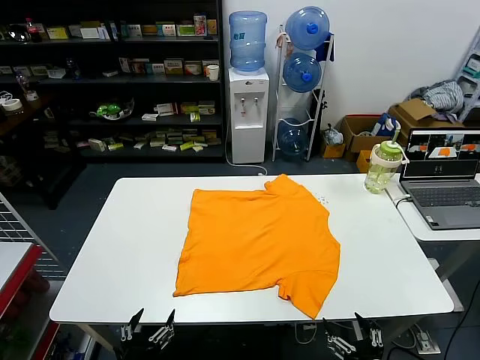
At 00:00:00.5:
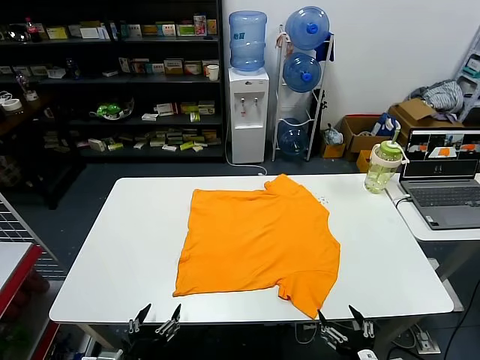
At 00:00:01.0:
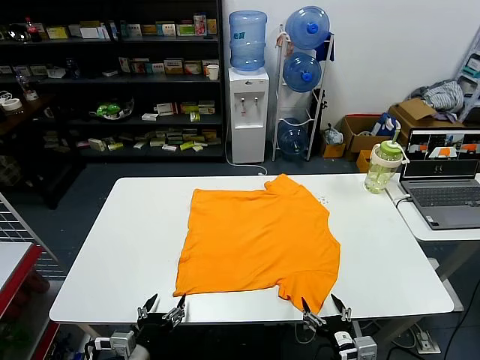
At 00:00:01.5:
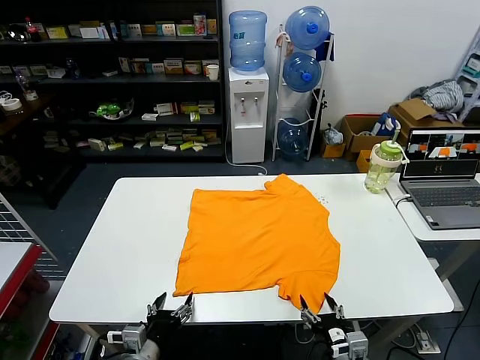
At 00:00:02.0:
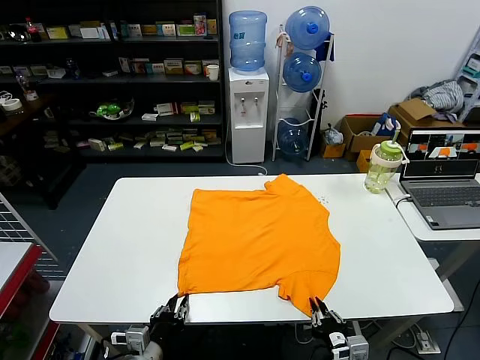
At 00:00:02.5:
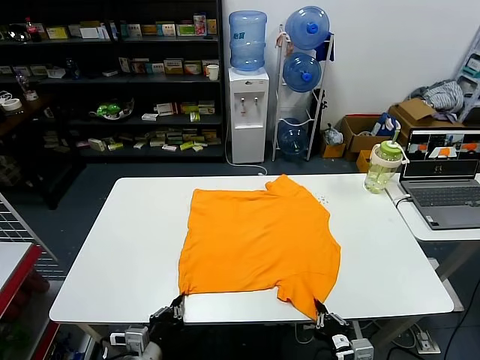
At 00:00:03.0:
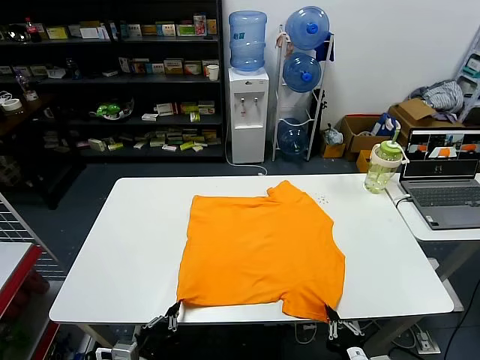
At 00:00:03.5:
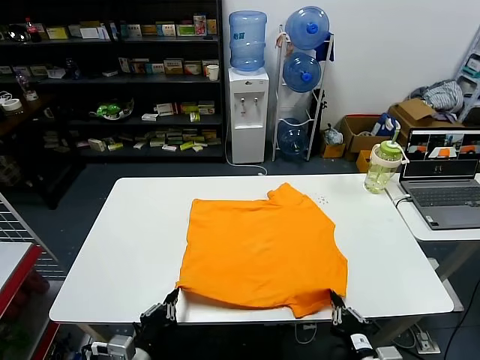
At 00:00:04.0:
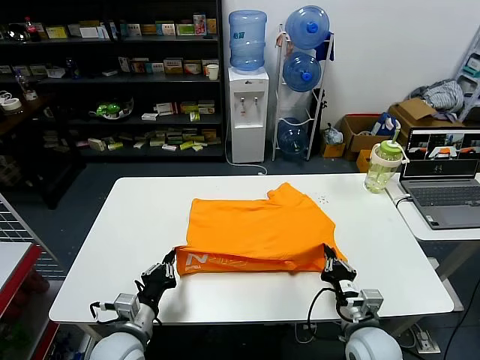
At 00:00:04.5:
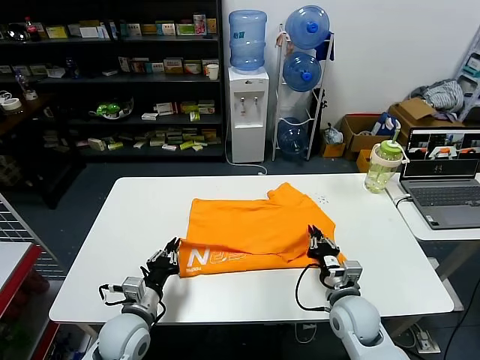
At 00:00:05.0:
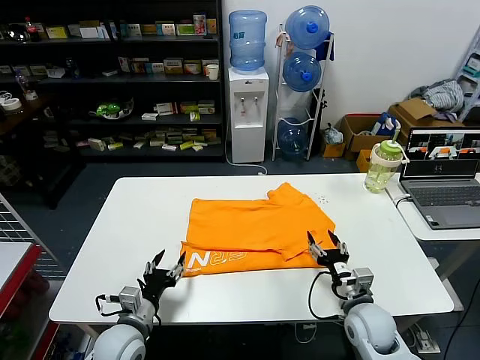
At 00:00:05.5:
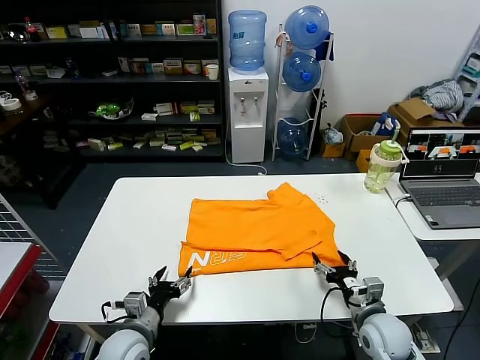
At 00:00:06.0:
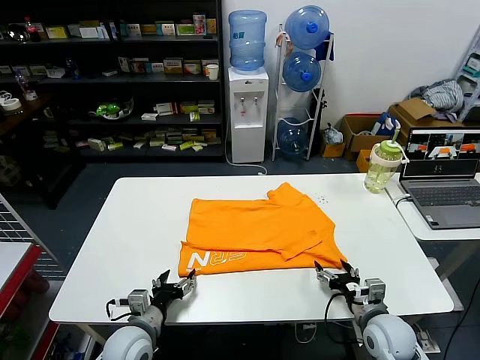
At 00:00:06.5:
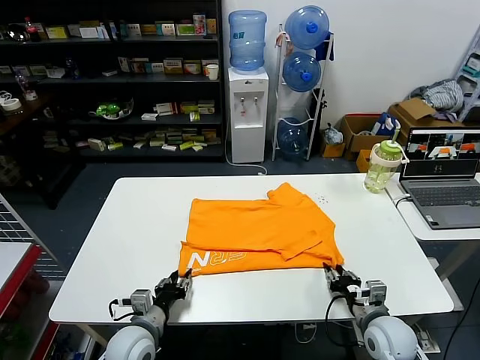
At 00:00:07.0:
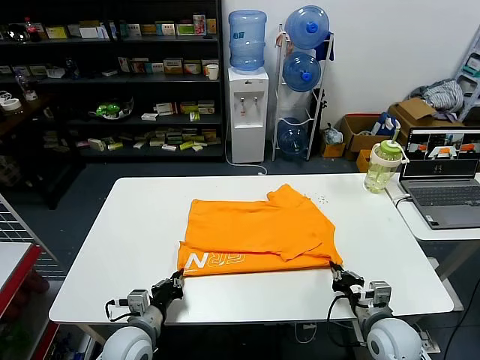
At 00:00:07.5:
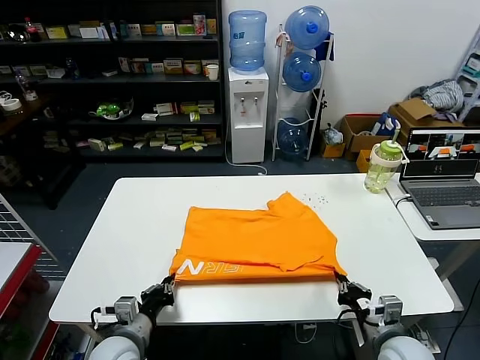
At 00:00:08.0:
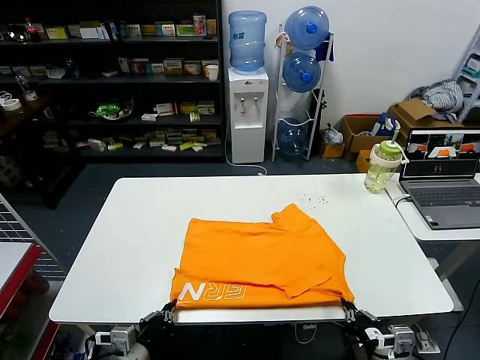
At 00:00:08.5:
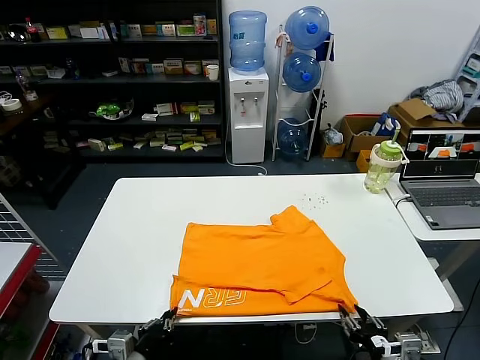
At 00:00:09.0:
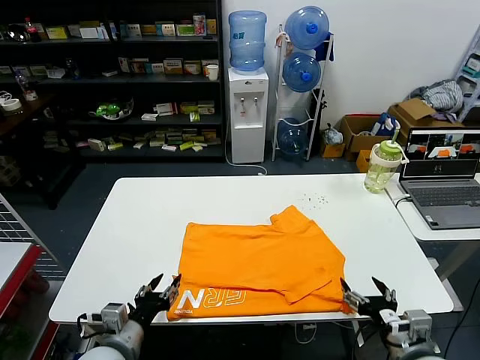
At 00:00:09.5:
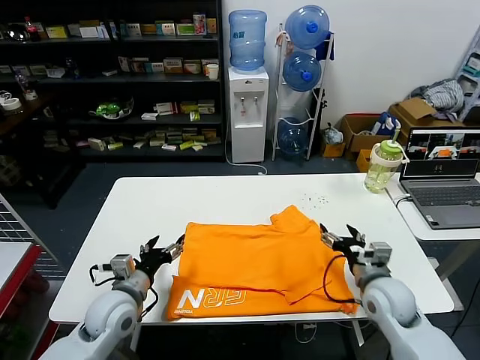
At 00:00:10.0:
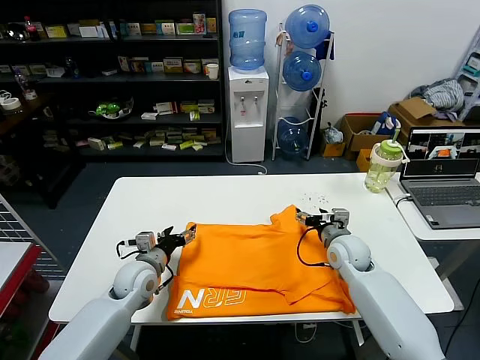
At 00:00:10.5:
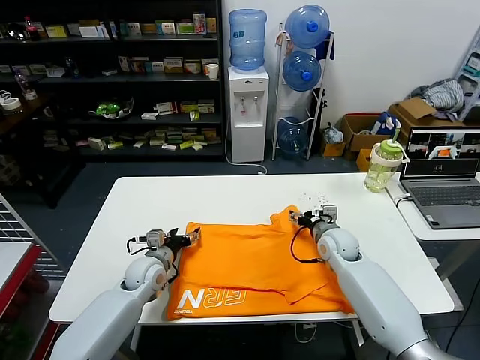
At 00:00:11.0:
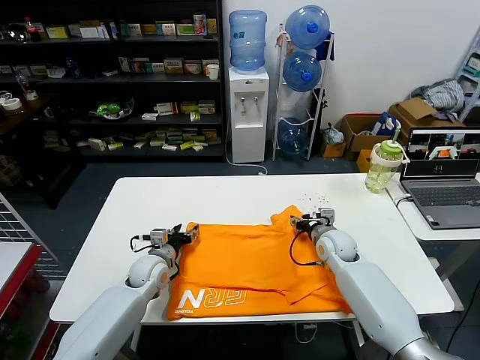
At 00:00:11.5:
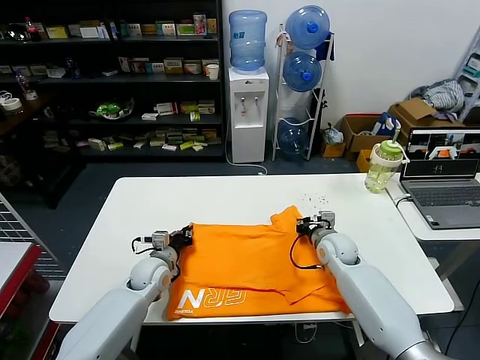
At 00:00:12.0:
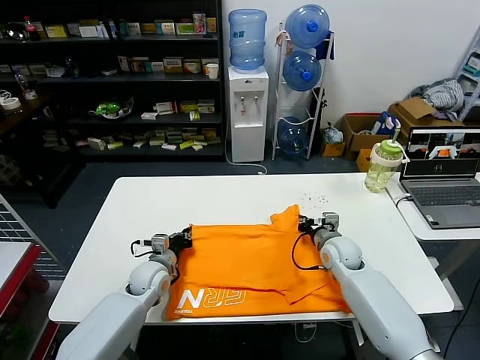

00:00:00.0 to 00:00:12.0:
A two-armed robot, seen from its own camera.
Task of the whole recording: fold and organize the clothes.
Step, 00:00:00.0 to 00:00:02.0: use both grippers simultaneously to clamp the lower edge of the clothing fabric.
Step, 00:00:02.5 to 00:00:04.5: use both grippers to drag the lower edge of the fabric forward and fold it over the upper edge.
Step, 00:00:05.0 to 00:00:08.5: Drag the clothes downward with both gripper.
Step, 00:00:09.0 to 00:00:11.5: use both grippers simultaneously to clamp the upper edge of the clothing fabric.
00:00:02.0 to 00:00:04.0: The left gripper changes place by some 5 cm, and closes. The right gripper goes about 10 cm forward.
00:00:04.0 to 00:00:06.0: The right gripper travels to the right by about 5 cm, and opens its fingers. Meanwhile the left gripper shifts by roughly 5 cm, and opens up.
00:00:06.0 to 00:00:08.0: Both grippers move backward, about 10 cm. The left gripper closes its fingers, while the right gripper closes its fingers.
00:00:08.0 to 00:00:10.0: Both grippers travel together forward, approximately 25 cm. The left gripper opens, while the right gripper opens its fingers.
00:00:10.0 to 00:00:12.0: The right gripper closes its fingers. The left gripper is displaced downward by about 5 cm, and closes its fingers.

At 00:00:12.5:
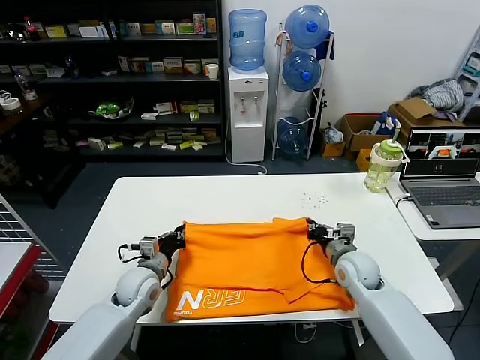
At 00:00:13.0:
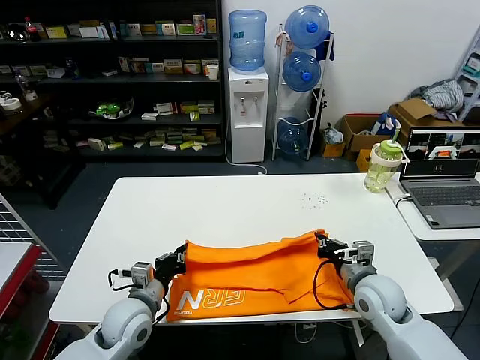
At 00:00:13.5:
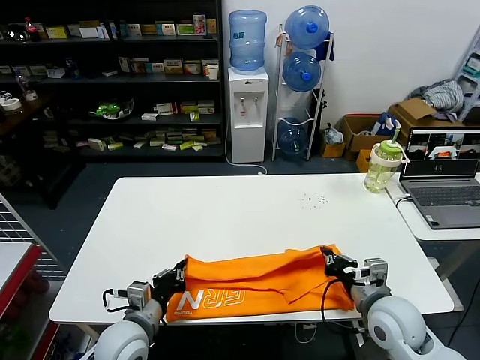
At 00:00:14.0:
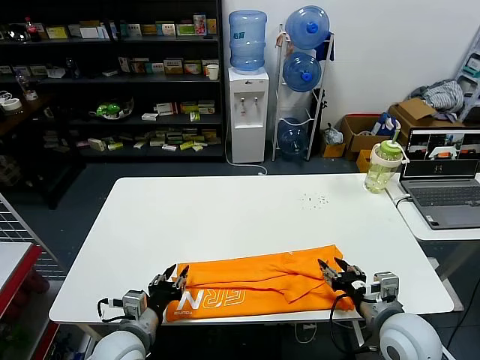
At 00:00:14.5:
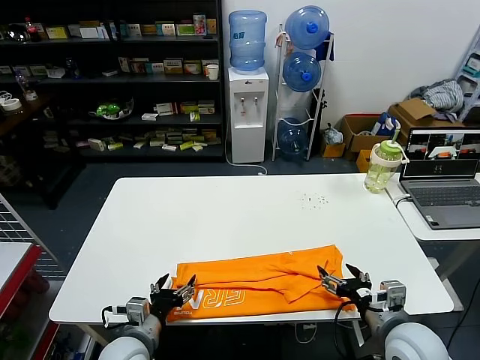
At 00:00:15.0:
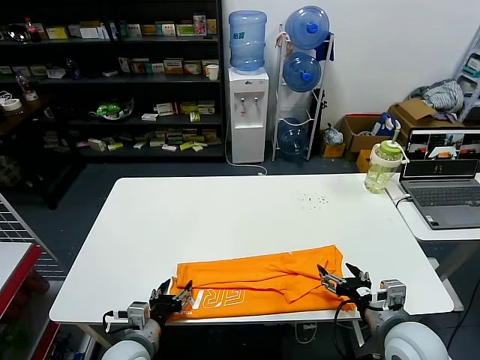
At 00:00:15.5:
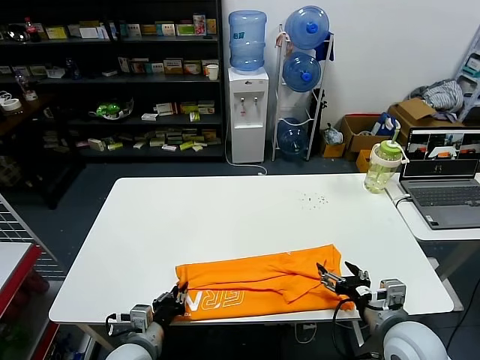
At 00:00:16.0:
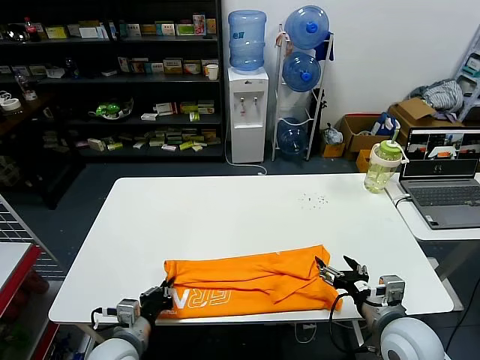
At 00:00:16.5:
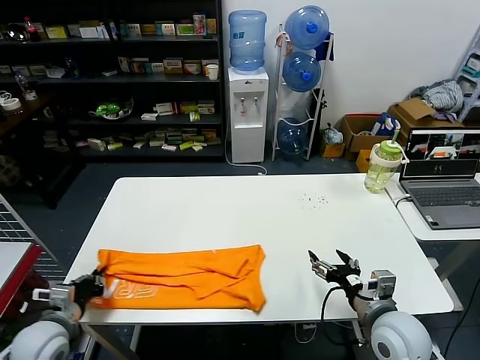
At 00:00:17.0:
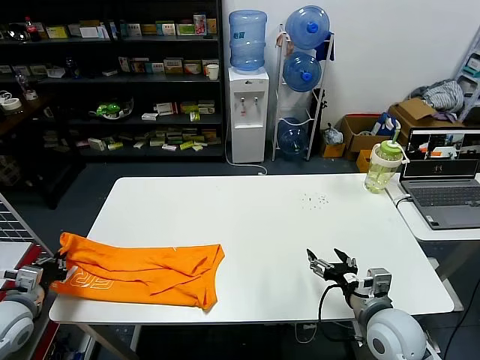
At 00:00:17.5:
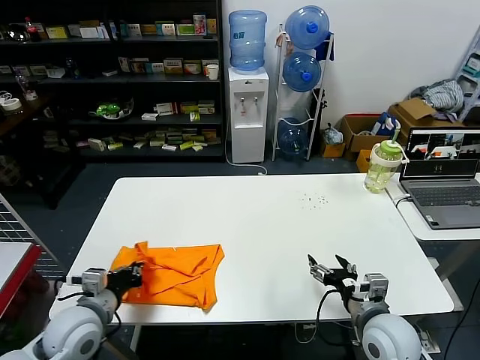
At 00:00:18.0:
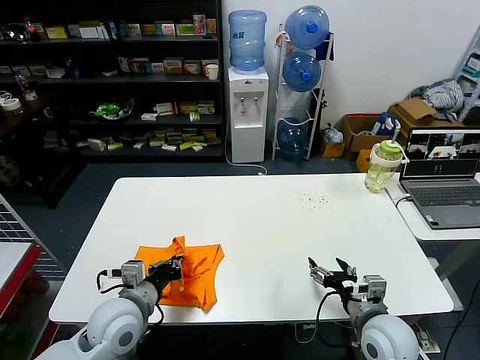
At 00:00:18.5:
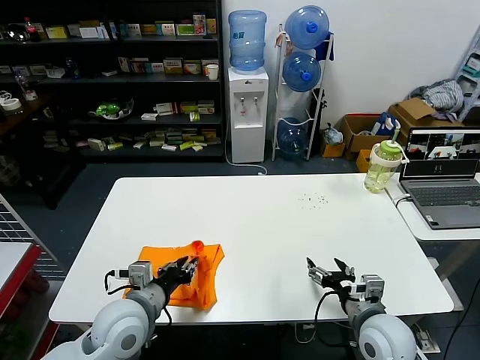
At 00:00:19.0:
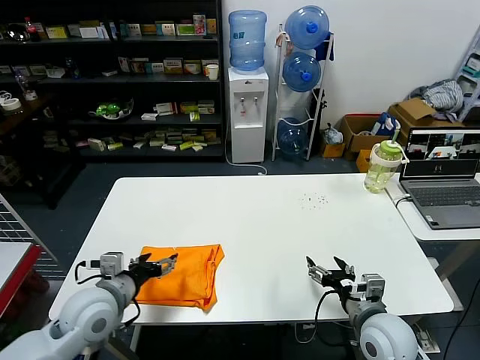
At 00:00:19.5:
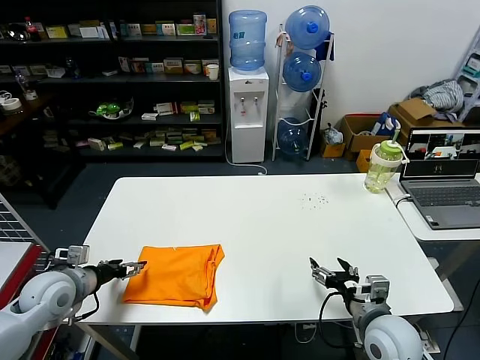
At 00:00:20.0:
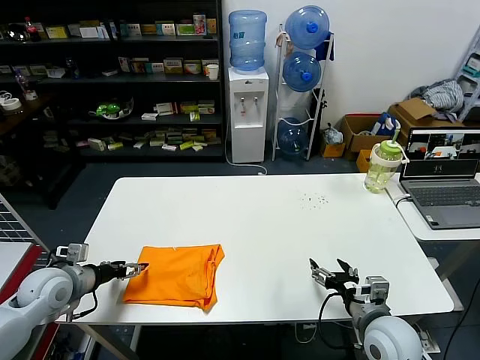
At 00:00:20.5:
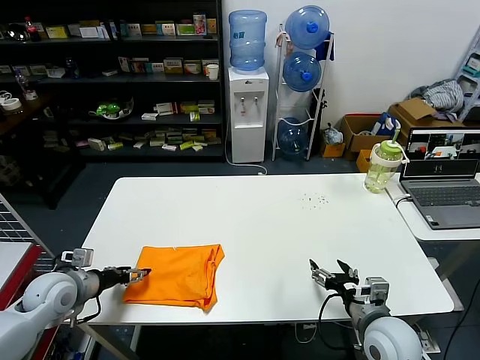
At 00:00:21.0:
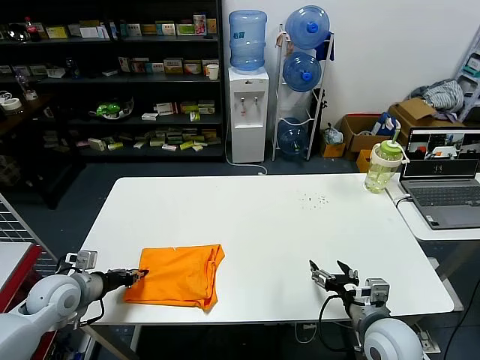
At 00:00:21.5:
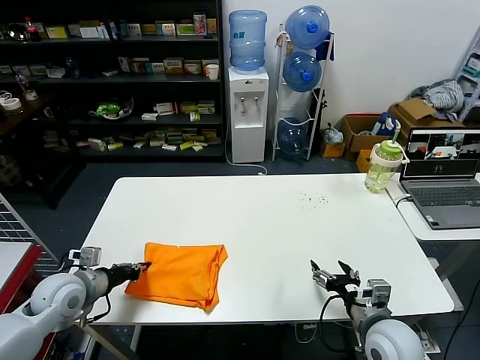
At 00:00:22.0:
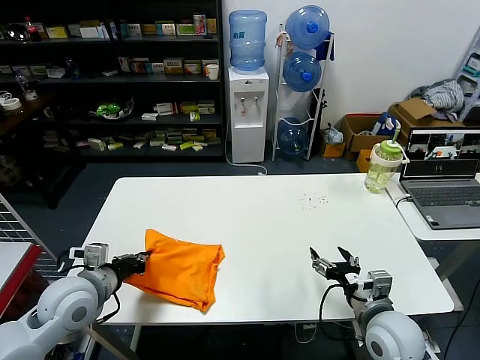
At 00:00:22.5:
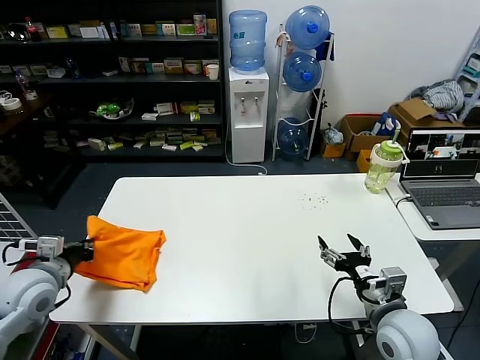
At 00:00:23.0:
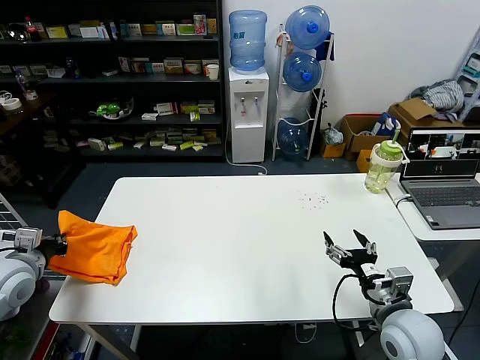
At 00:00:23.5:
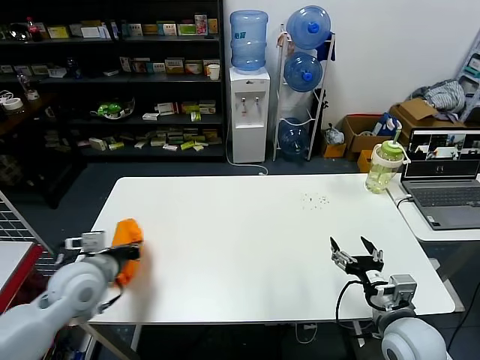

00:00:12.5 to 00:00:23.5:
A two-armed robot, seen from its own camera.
Task of the whole recording: fold and organize the clothes.
Step, 00:00:14.0 to 00:00:15.5: use the left gripper to clamp the left edge of the fabric.
Step, 00:00:16.0 to 00:00:18.5: use the left gripper to drag the left edge of the fabric to the left and folds it over the right edge.
00:00:12.5 to 00:00:14.5: Both grippers travel together backward, approximately 20 cm. The right gripper opens. The left gripper opens.
00:00:14.5 to 00:00:16.0: The left gripper closes.
00:00:16.0 to 00:00:18.0: The left gripper goes approximately 10 cm upward, and moves roughly 25 cm to the left and comes back.
00:00:18.0 to 00:00:20.0: The left gripper moves to the left, about 15 cm, and opens up.
00:00:20.0 to 00:00:21.5: The left gripper closes its fingers.
00:00:21.5 to 00:00:23.5: The left gripper swings left and right, roughly 15 cm each way, with 2 reversals.

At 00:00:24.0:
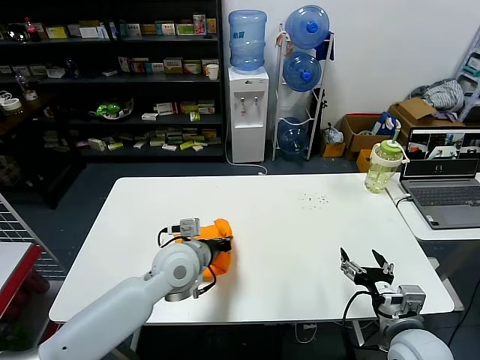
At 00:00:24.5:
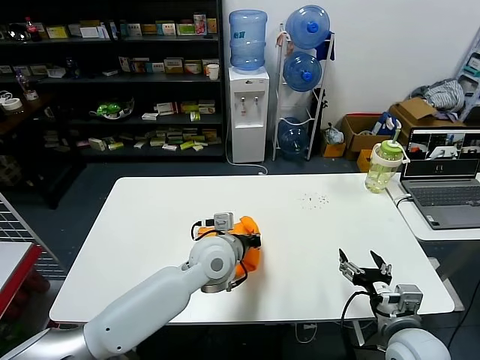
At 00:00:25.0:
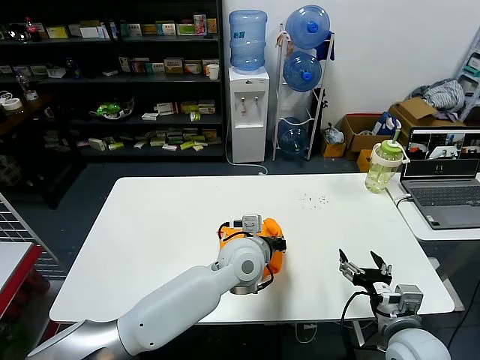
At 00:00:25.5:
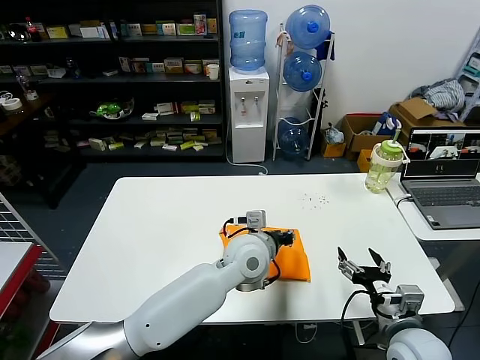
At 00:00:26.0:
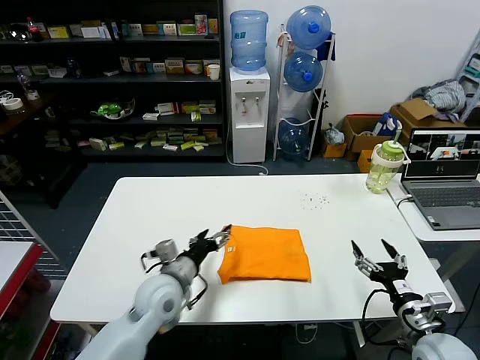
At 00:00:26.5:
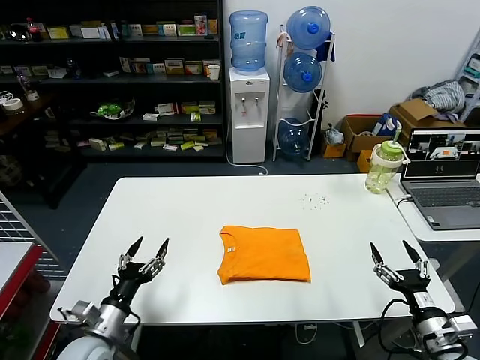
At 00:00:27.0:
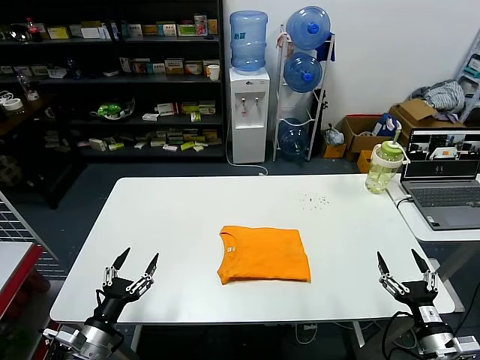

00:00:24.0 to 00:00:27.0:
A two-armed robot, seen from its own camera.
Task of the whole recording: fold and organize the clothes.
00:00:24.0 to 00:00:25.5: The left gripper travels to the right by roughly 15 cm, and opens up.
00:00:25.5 to 00:00:27.0: The left gripper travels to the left and backward by roughly 40 cm, and opens. Meanwhile the right gripper moves to the right, downward and backward, roughly 10 cm.
